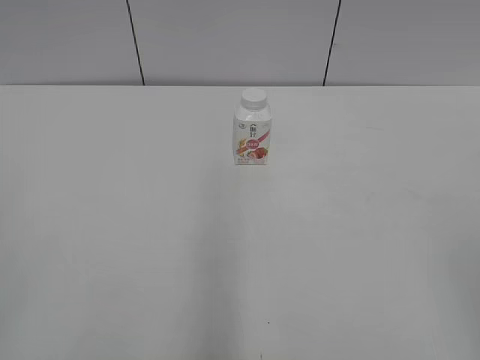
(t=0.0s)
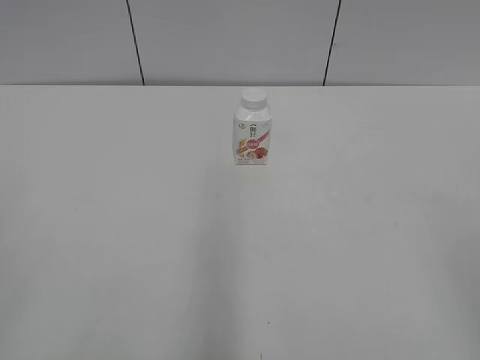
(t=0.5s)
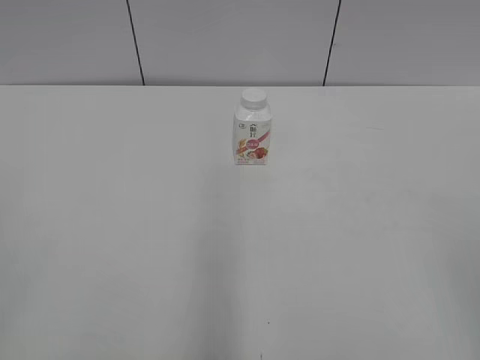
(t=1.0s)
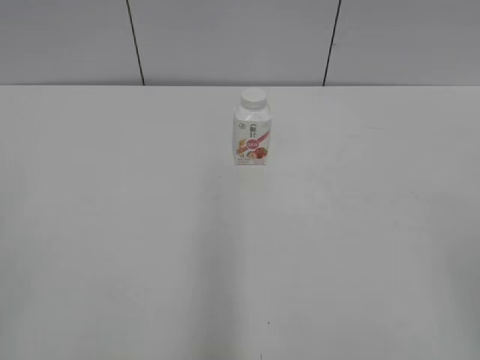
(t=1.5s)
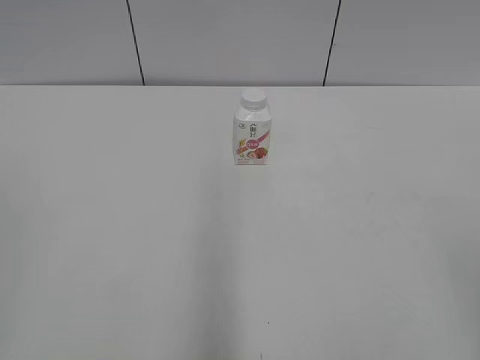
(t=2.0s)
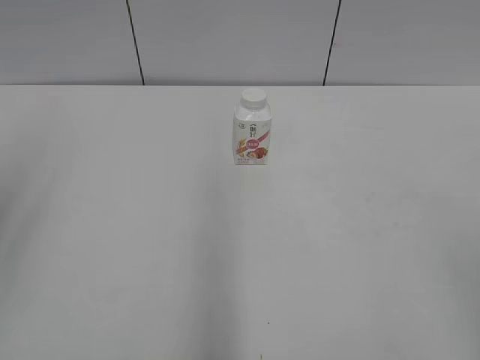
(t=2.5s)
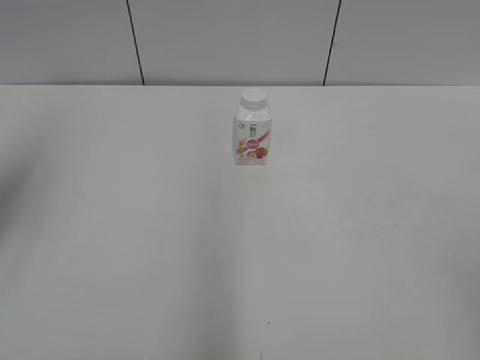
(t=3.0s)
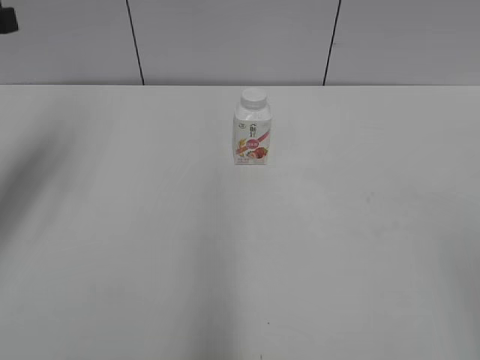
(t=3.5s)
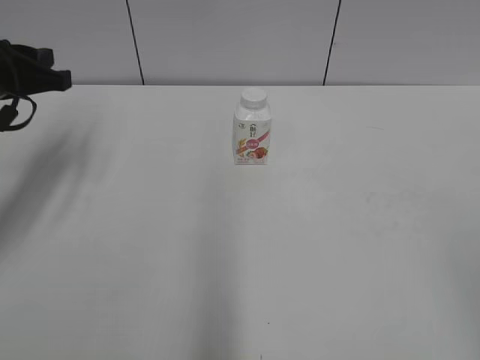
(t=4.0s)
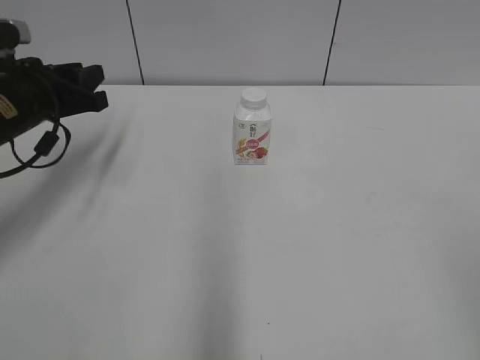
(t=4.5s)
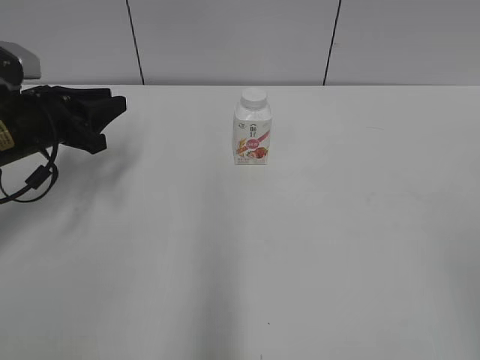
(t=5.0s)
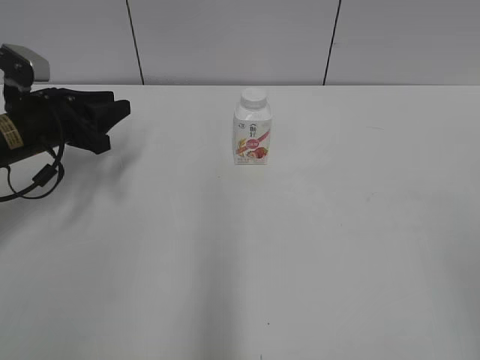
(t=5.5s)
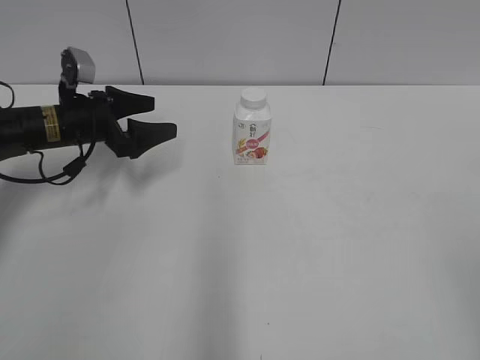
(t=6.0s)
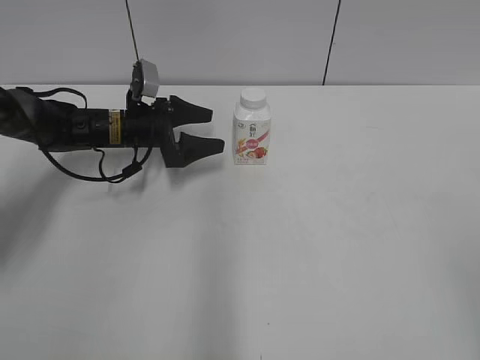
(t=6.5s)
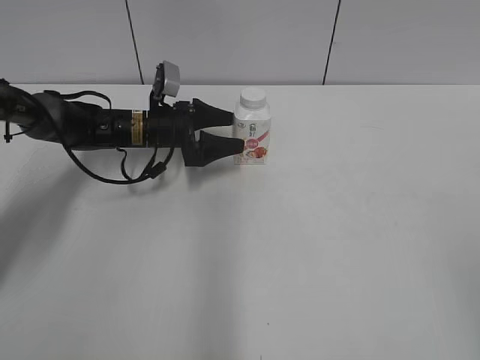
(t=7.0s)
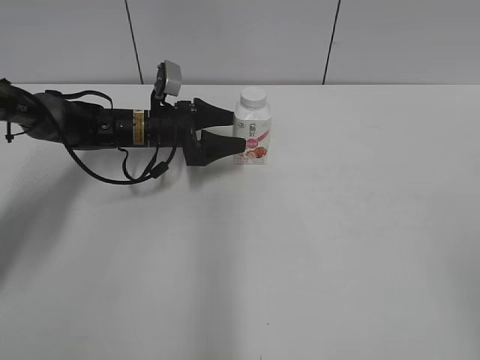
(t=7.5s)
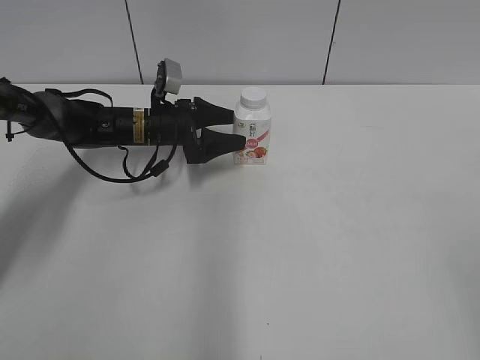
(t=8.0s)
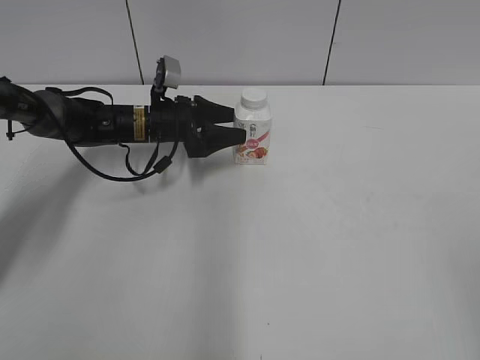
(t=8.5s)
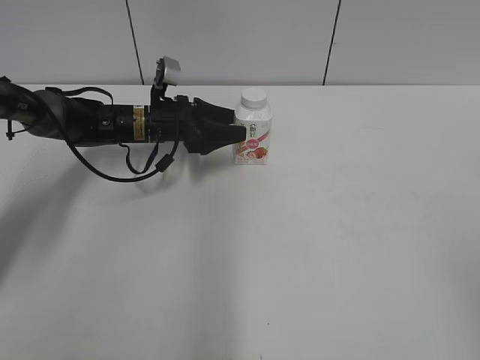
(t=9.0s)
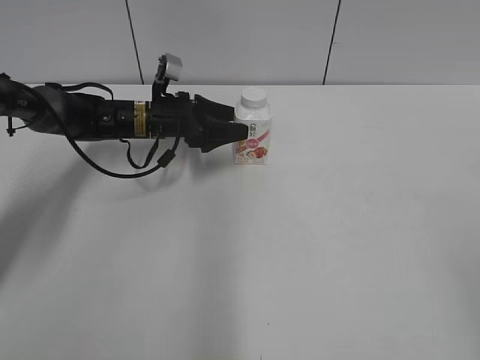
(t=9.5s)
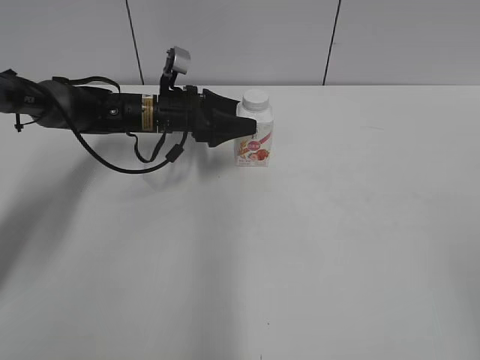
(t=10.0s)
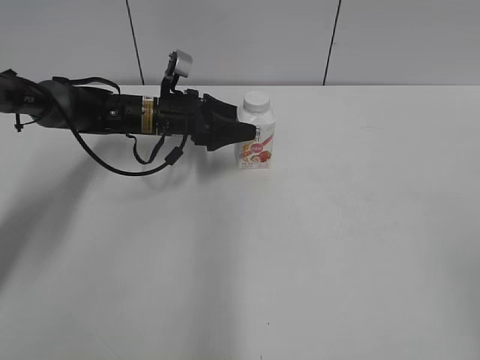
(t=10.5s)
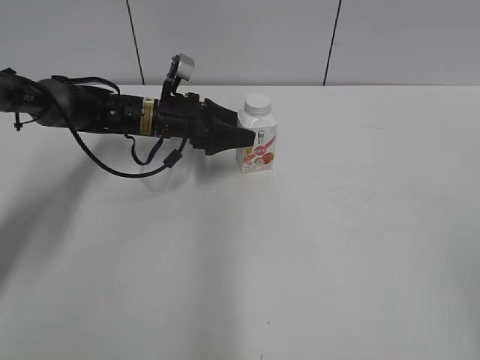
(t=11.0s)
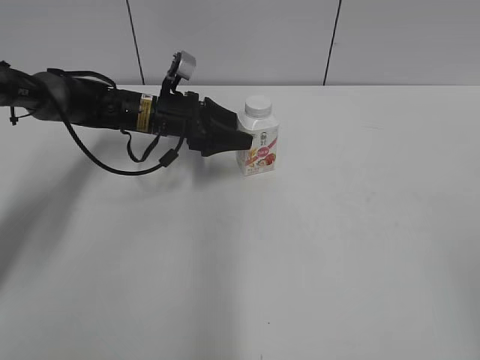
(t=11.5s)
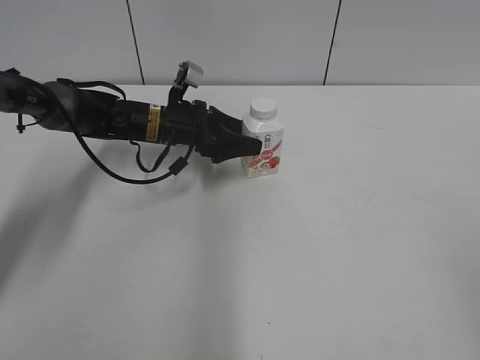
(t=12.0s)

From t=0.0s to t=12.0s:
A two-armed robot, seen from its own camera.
From t=2.0s to t=4.0s: The left gripper is displaced forward by about 35 cm.
From t=4.0s to t=6.0s: The left gripper moves downward and forward, roughly 15 cm, and opens its fingers.
From t=6.0s to t=8.0s: The left gripper goes some 10 cm to the right and forward.
From t=8.0s to t=12.0s: There are only small adjustments of the grippers.

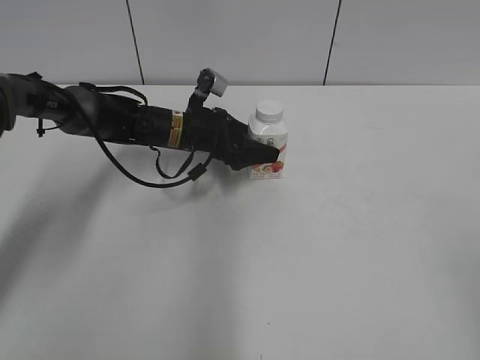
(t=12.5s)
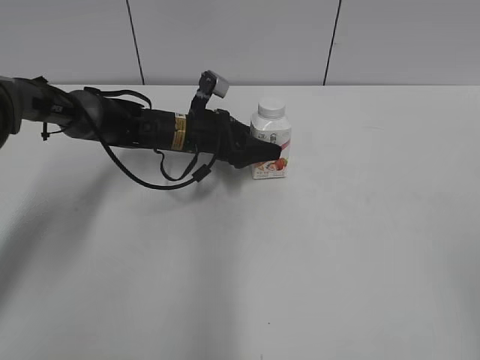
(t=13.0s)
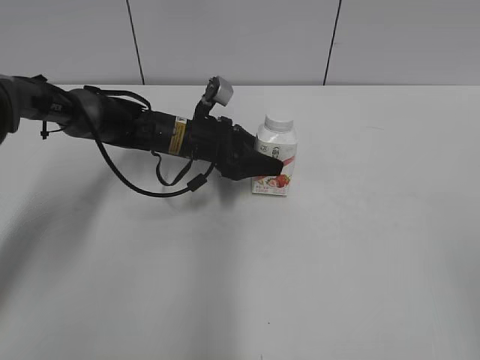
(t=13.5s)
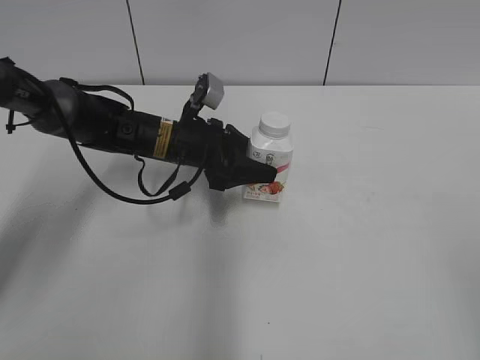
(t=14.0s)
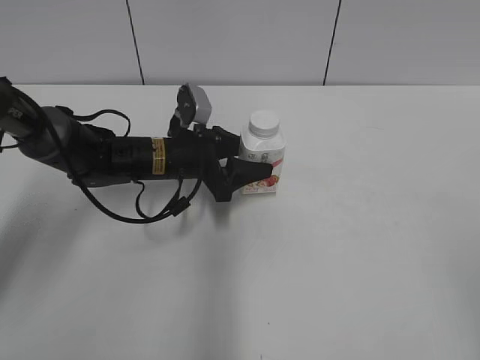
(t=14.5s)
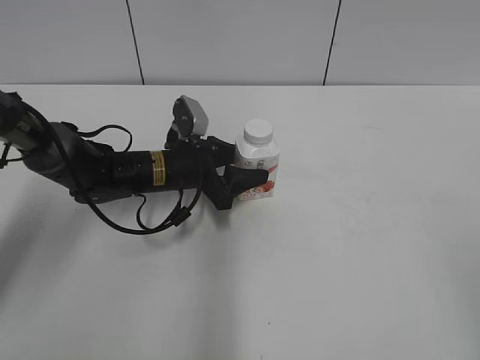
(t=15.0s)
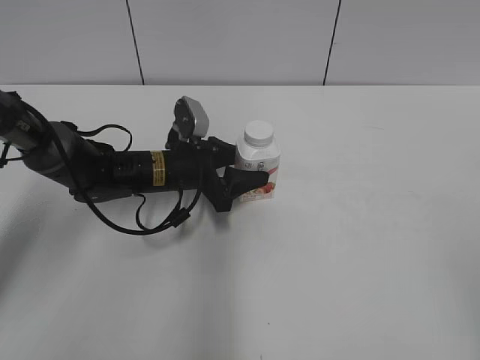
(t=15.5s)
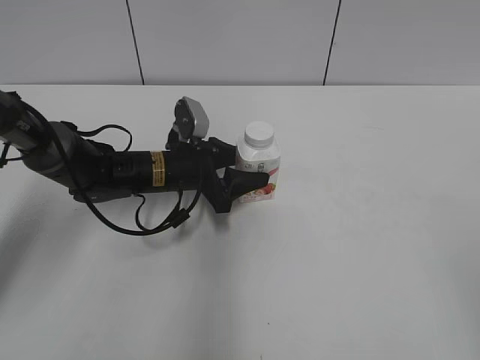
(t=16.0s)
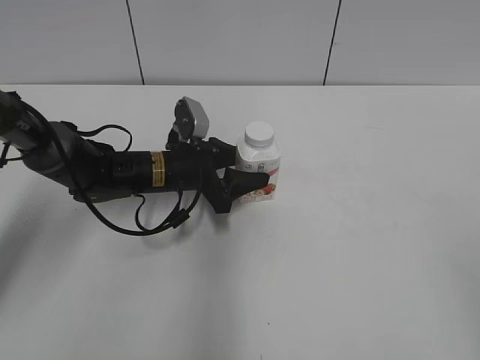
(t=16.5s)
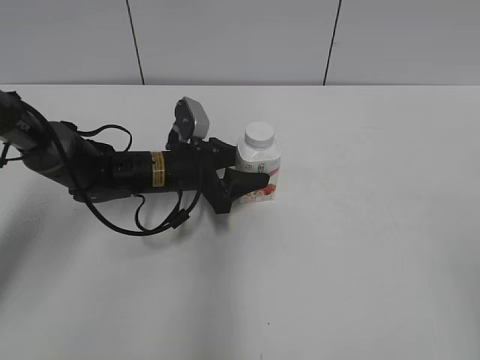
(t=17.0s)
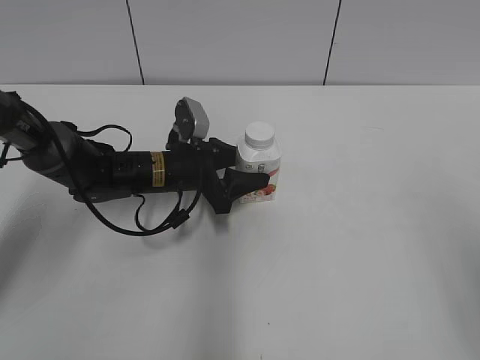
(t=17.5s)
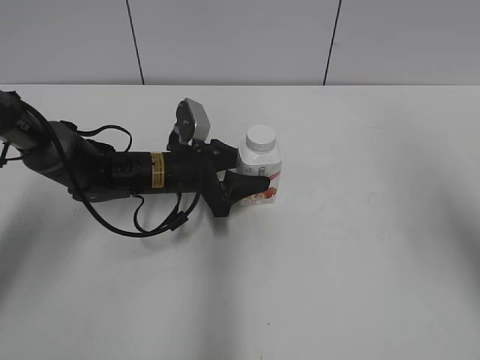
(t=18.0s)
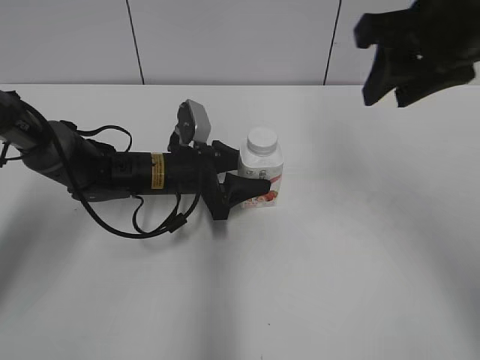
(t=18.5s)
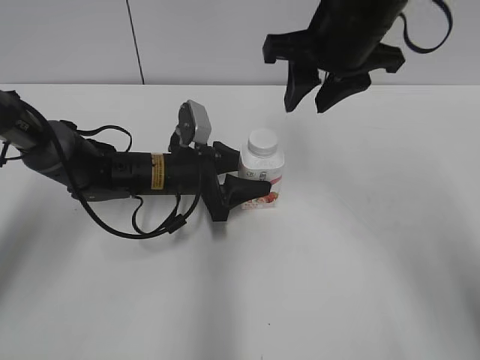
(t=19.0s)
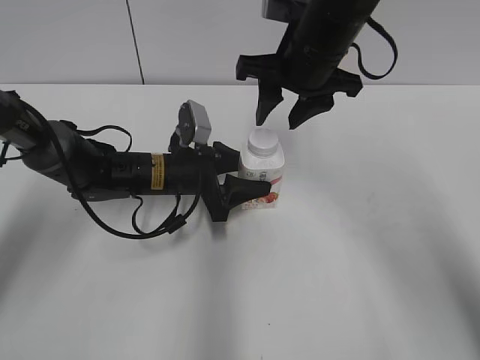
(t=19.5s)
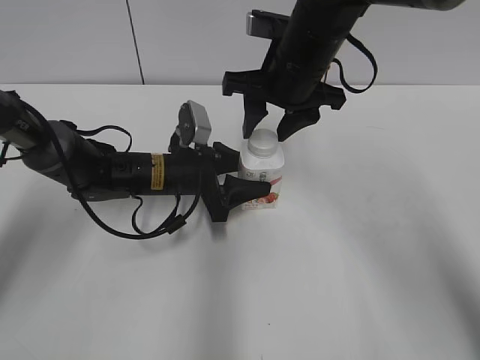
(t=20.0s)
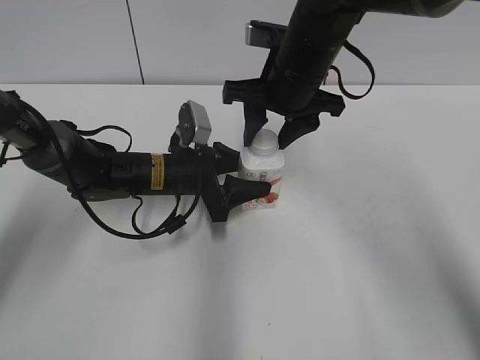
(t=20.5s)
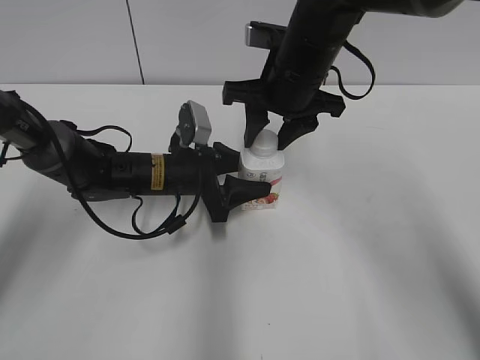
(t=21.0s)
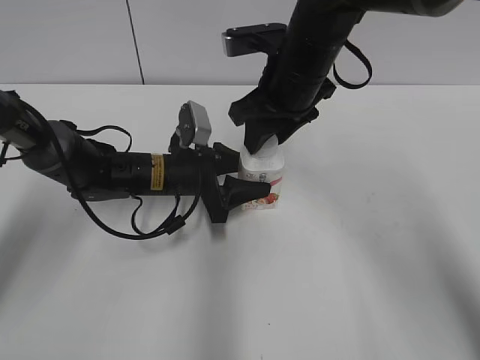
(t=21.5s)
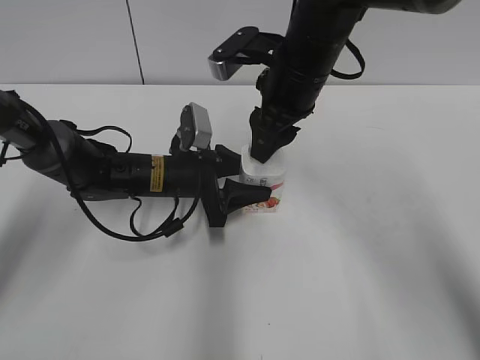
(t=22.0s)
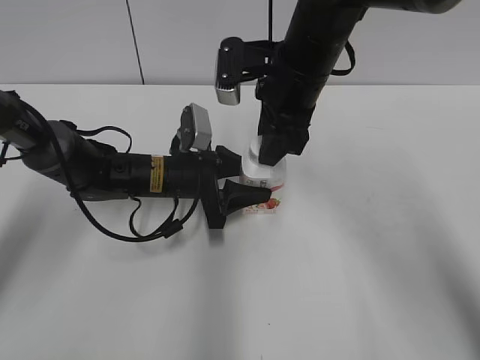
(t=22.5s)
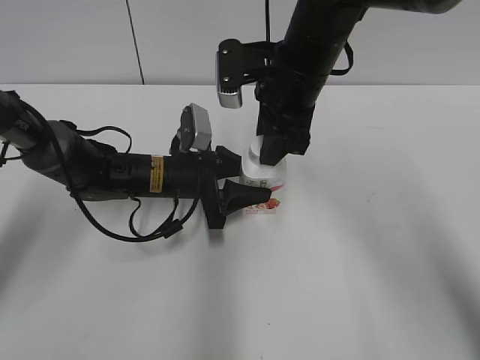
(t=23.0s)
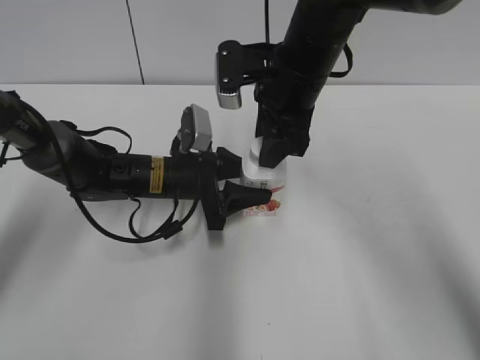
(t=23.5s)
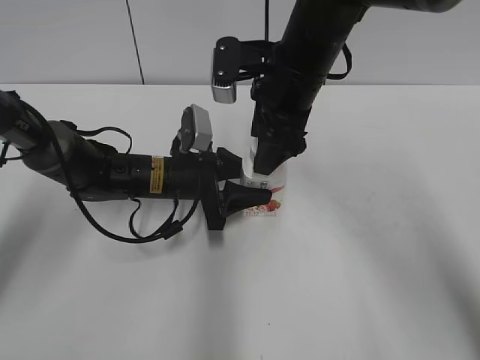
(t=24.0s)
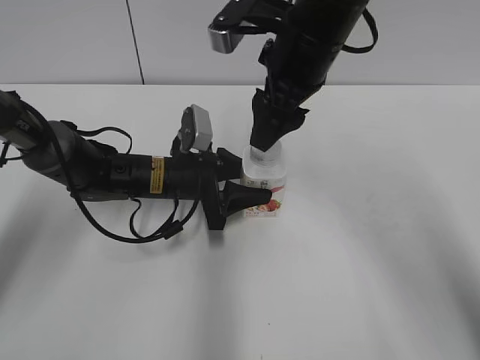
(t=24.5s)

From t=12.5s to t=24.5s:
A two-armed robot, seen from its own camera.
Step, from t=13.5s to t=15.0s: Lift the bottle and move it to the center of the table with the left gripper.
From t=12.5s to t=14.5s: The left gripper moves backward, about 5 cm.
From t=14.5s to t=16.5s: The grippers stay close to where they were, moving slightly.
From t=16.5s to t=18.5s: The right gripper is displaced forward and to the left by approximately 35 cm, and closes.
From t=18.5s to t=20.5s: The right gripper goes roughly 15 cm to the left, downward and forward, and opens.
From t=22.5s to t=24.5s: The right gripper opens its fingers.

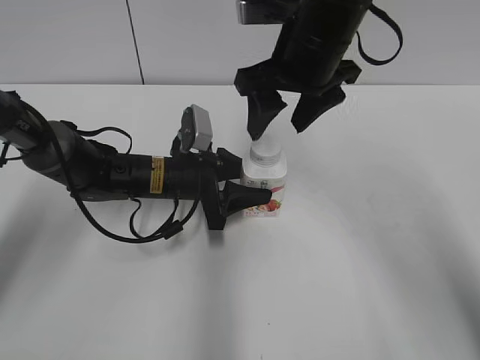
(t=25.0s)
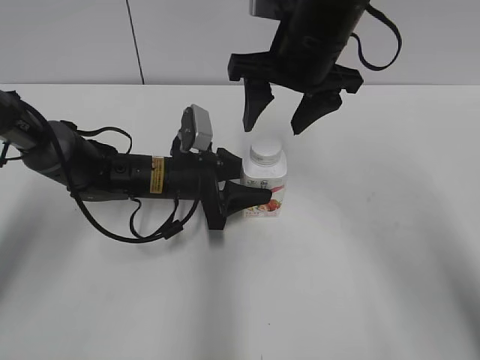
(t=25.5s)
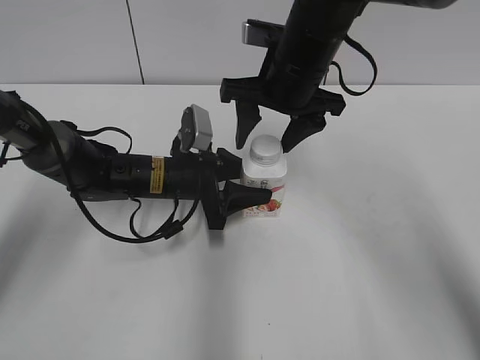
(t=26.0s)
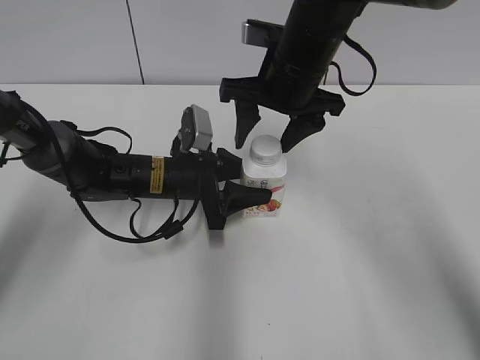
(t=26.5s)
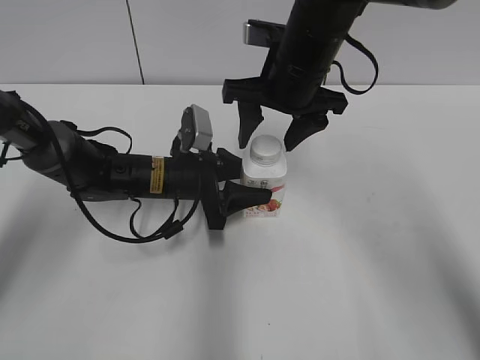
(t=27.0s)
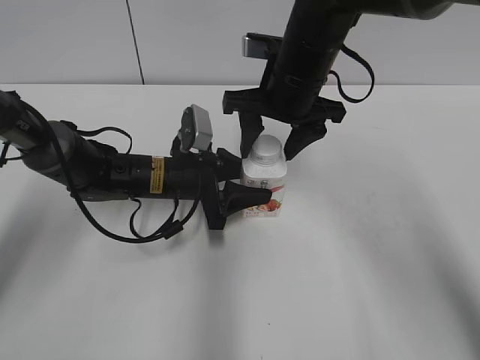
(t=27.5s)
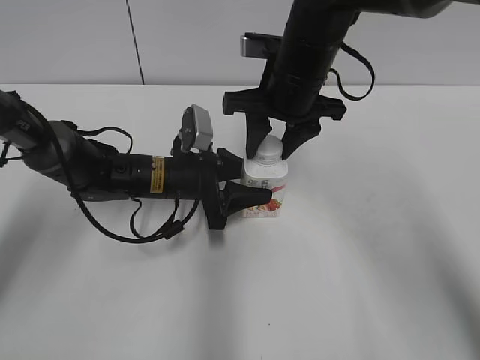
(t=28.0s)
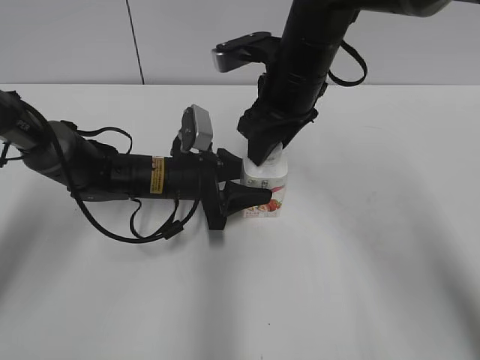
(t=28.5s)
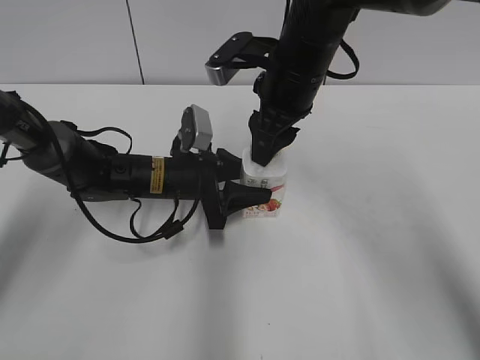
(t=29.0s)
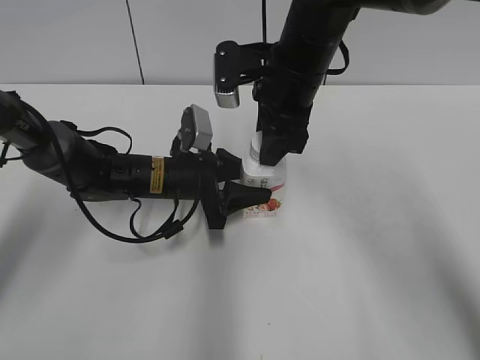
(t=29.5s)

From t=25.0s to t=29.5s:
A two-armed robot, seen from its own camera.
From t=25.0s to t=27.0s: The grippers make only small movements.
From t=27.0s to t=29.5s: The right gripper closes up.
